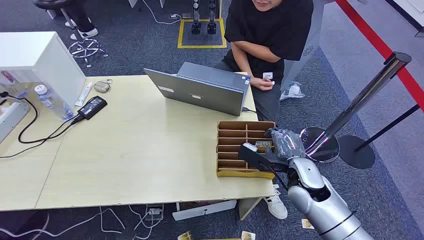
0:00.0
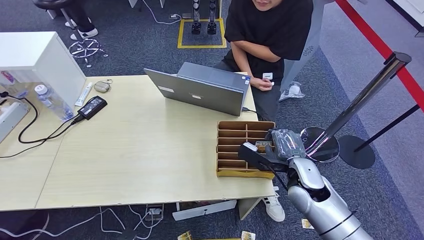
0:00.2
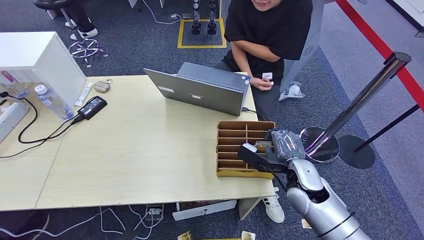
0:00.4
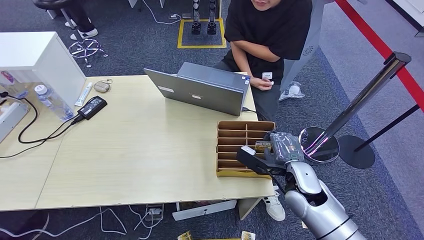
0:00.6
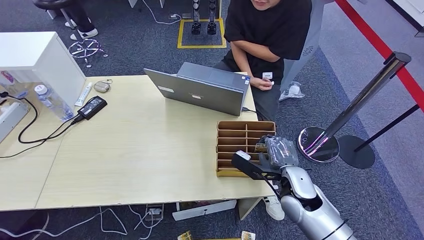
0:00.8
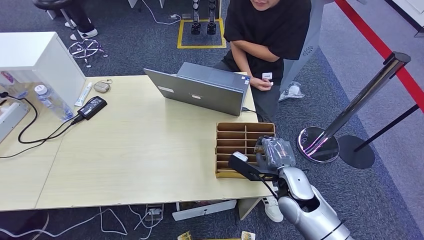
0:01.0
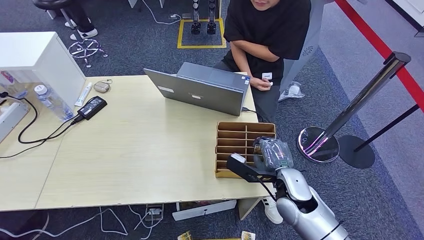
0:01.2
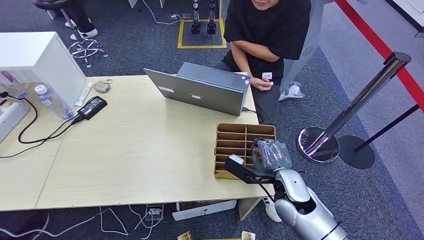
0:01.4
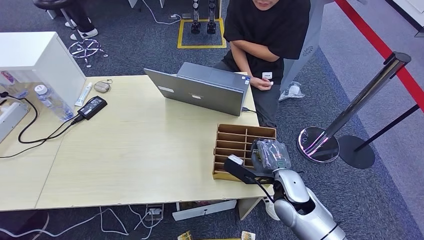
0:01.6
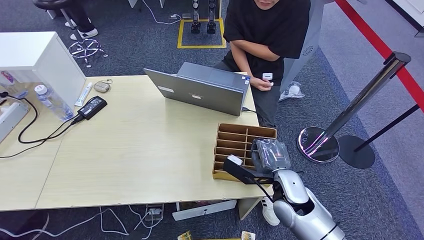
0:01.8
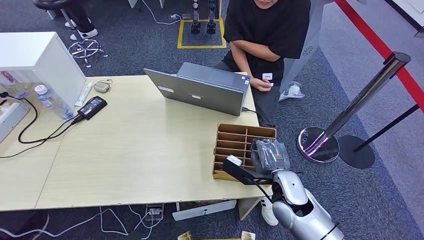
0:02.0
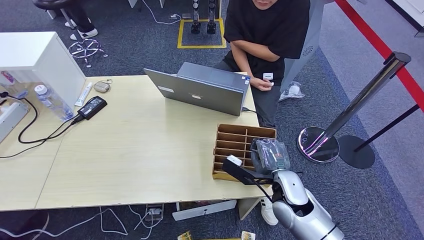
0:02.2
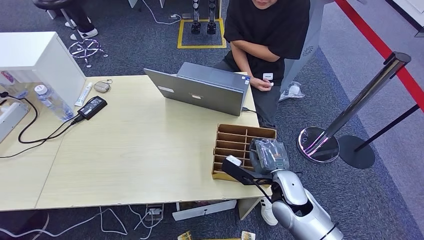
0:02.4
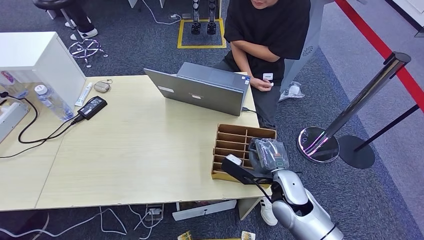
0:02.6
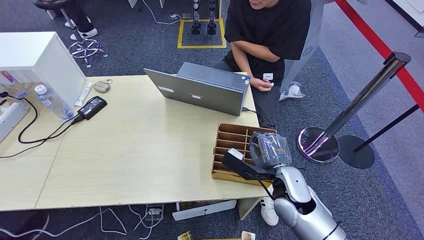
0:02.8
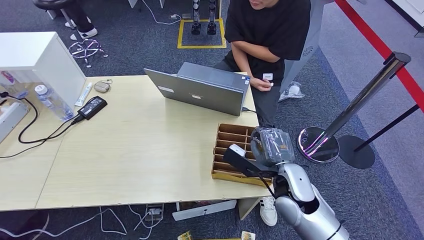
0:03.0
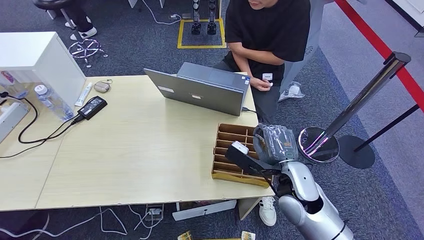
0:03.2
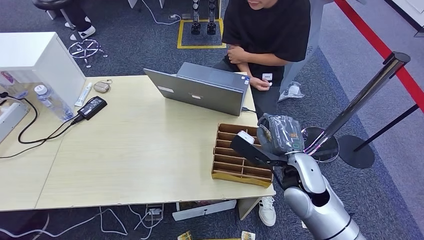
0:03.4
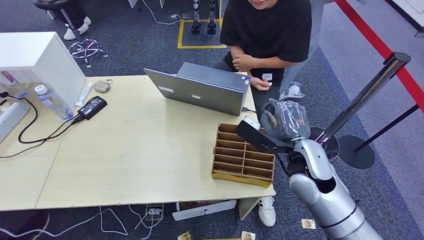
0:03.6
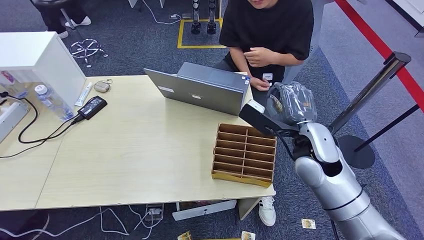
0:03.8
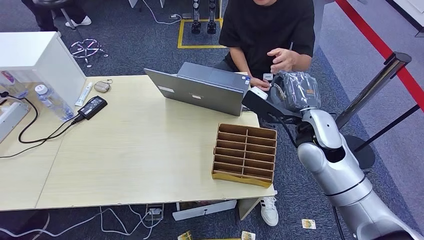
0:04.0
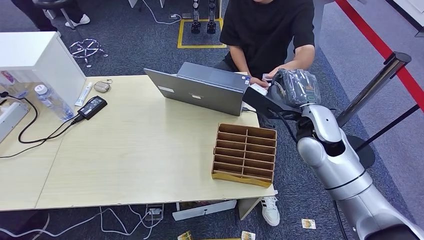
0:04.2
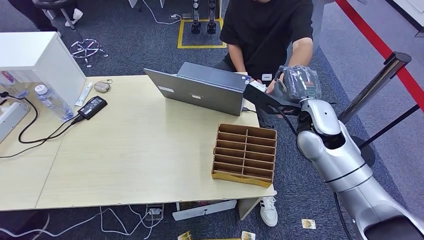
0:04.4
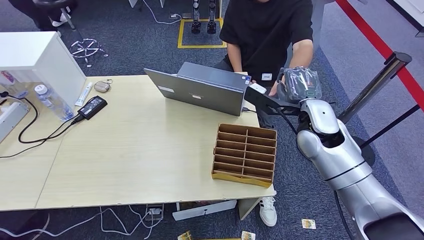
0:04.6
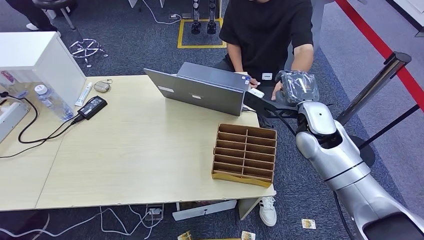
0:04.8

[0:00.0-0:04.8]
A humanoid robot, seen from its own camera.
Task of the whole recording: Pick up the card and hand it over to the target person.
Step, 0:00.0 to 0:03.0: Pick up the key card from the card box.
Step, 0:03.2 to 0:04.8: Hand the key card to the target.
0:01.6 to 0:03.2: The right hand travels upward by approximately 10 cm.
0:03.2 to 0:04.8: The right hand is displaced forward by about 10 cm.
